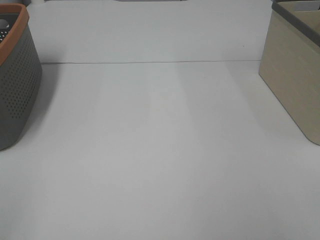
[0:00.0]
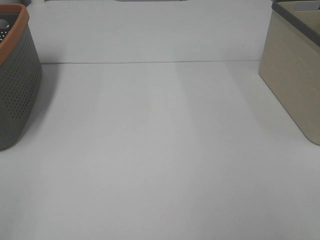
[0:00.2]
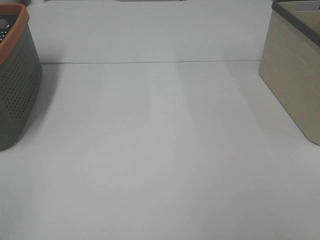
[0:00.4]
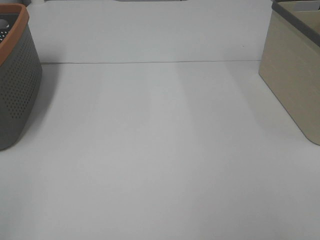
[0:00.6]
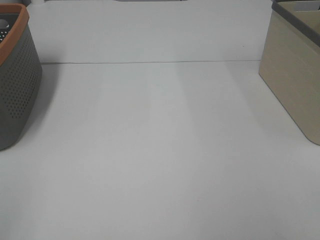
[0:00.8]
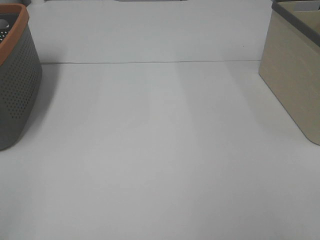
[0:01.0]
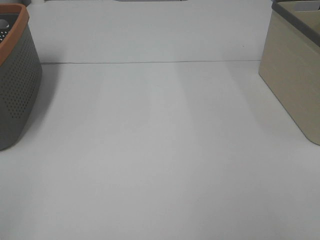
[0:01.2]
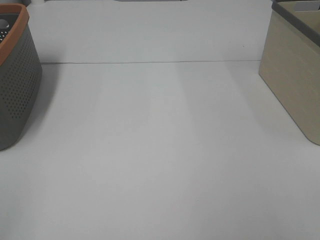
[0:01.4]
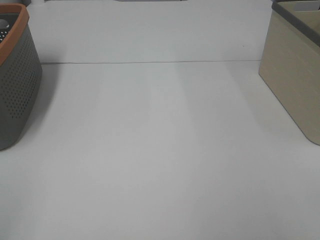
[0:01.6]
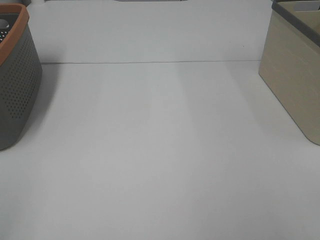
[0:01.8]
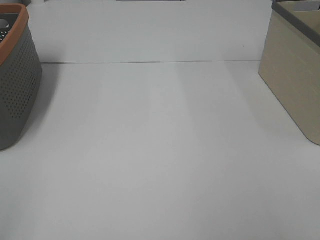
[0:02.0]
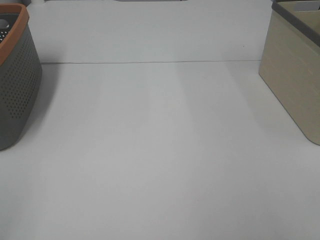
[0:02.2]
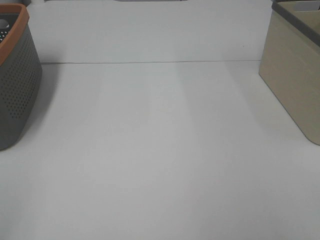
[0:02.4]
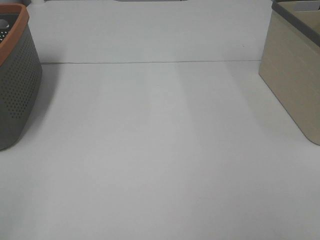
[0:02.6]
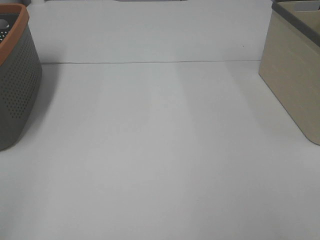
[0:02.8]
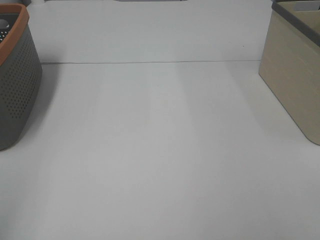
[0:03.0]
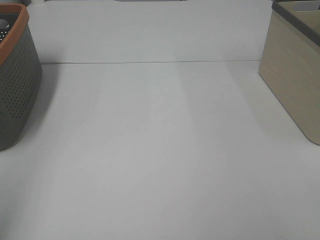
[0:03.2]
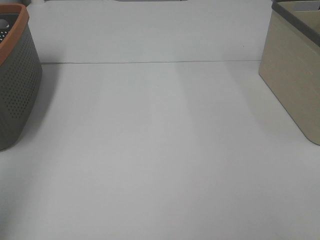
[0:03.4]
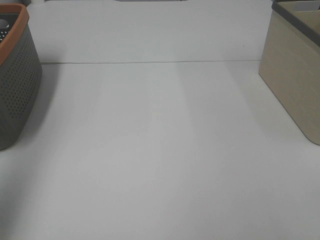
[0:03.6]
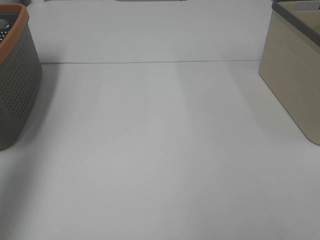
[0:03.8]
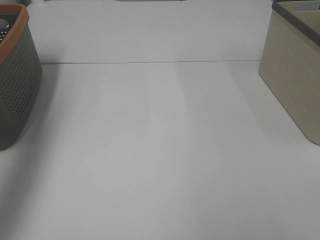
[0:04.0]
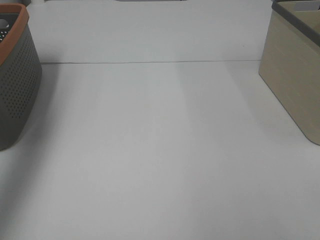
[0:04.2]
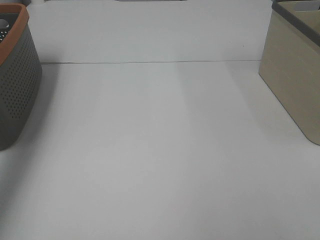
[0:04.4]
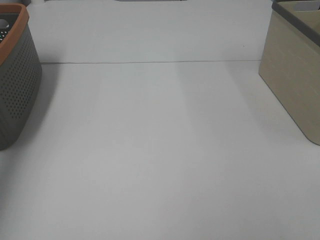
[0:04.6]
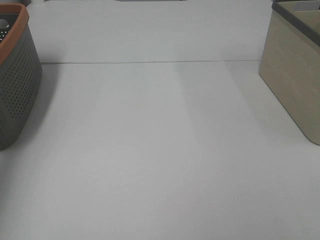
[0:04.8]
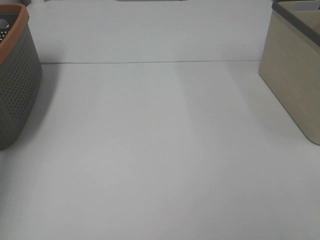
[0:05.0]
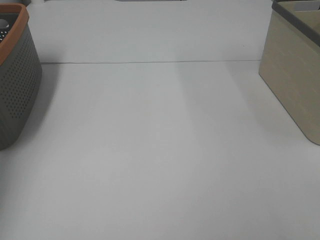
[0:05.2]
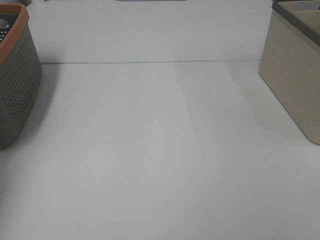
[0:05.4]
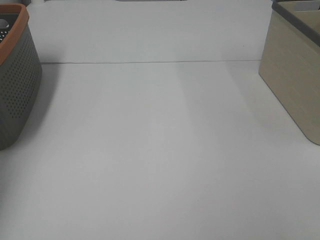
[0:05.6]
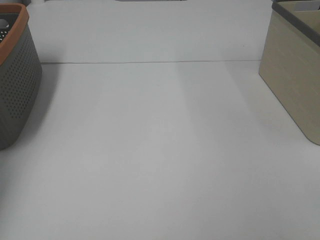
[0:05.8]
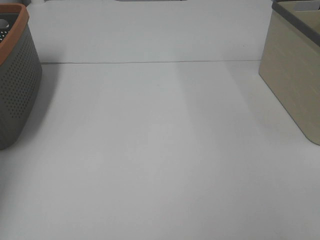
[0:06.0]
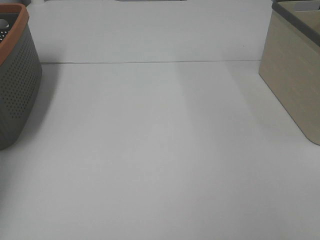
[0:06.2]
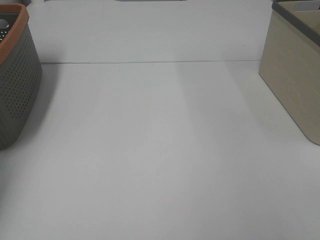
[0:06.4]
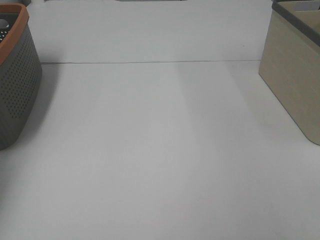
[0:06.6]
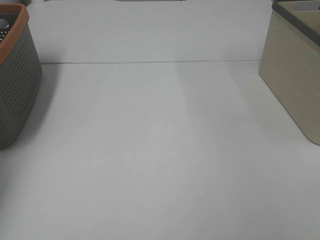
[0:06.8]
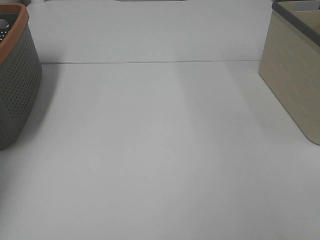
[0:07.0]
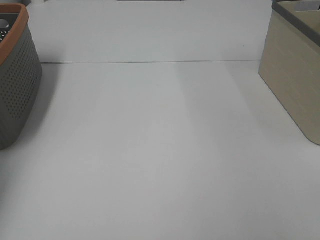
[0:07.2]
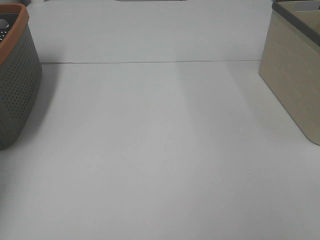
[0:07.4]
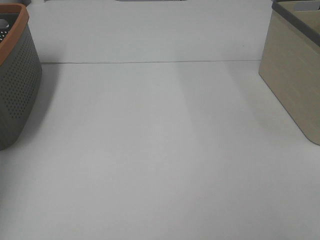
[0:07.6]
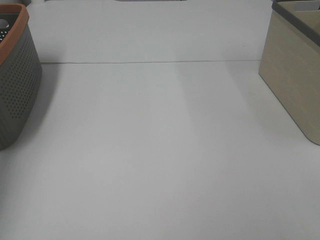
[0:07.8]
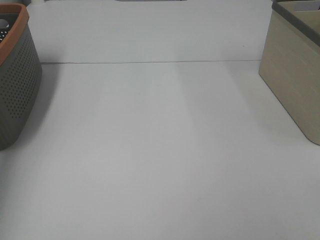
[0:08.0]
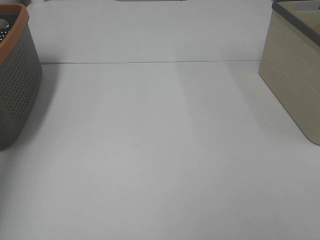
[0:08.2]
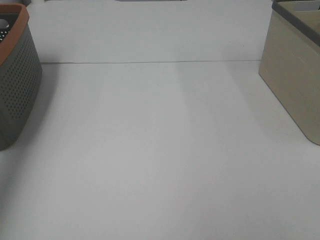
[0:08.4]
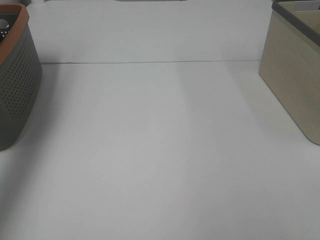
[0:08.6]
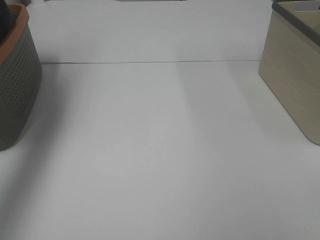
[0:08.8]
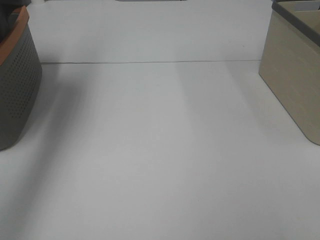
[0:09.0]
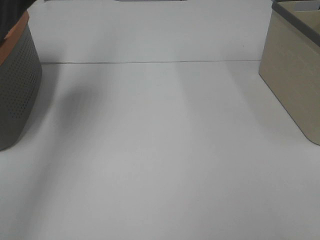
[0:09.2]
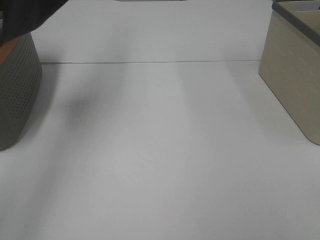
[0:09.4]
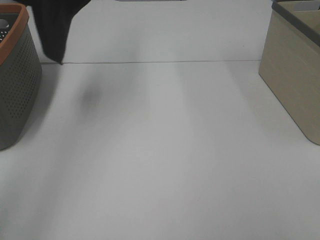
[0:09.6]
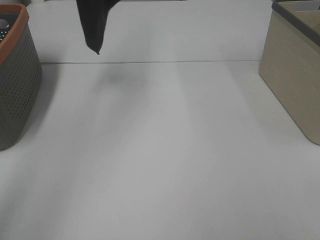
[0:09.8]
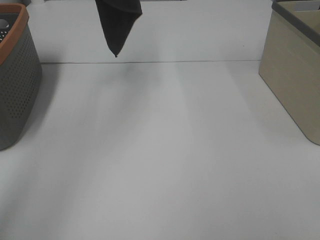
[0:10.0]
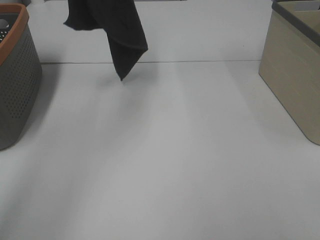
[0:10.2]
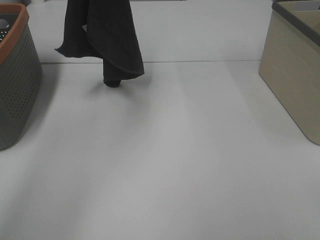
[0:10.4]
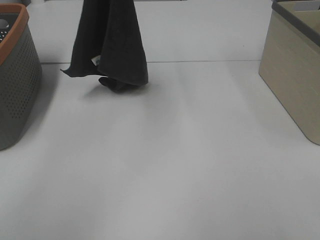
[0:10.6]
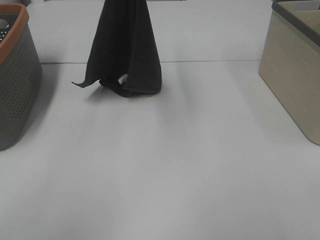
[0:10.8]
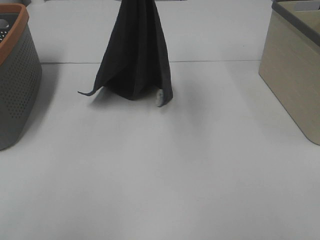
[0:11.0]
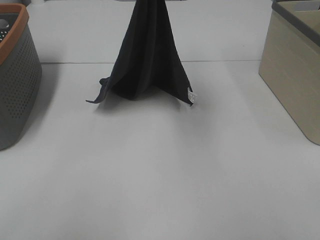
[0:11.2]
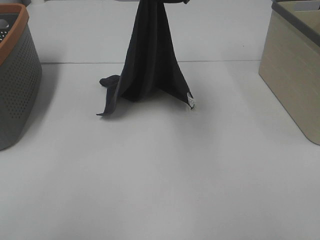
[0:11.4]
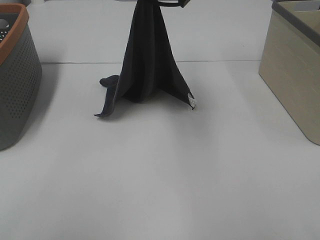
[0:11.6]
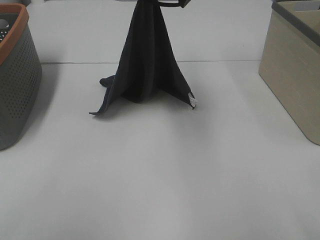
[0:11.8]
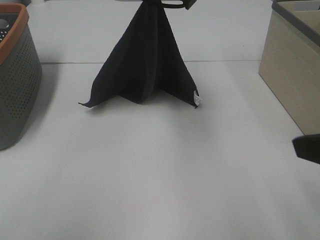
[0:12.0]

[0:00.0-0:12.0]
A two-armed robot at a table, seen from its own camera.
Task of the whole recording: Remove the towel and place it.
0:00.0 to 0:01.6: Both grippers stay about where they are.
0:03.0 to 0:04.4: The left gripper heads forward, covering approximately 30 cm.
0:04.4 to 0:06.0: The left gripper moves downward and forward, approximately 20 cm.
0:07.6 to 0:09.0: The left gripper shifts about 35 cm upward, to the right and backward.
0:09.0 to 0:10.4: The left gripper is displaced to the right, downward and forward by approximately 20 cm.
0:10.4 to 0:12.0: The right gripper shifts some 15 cm forward. The left gripper is displaced to the right, downward and backward by about 15 cm.

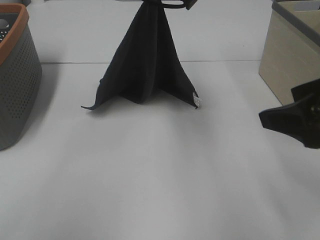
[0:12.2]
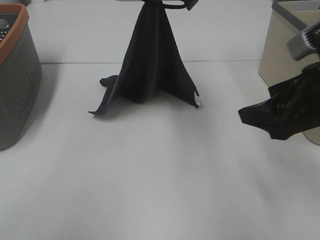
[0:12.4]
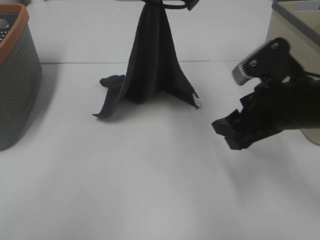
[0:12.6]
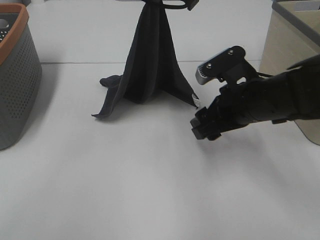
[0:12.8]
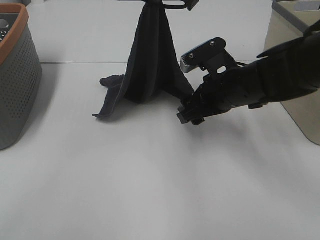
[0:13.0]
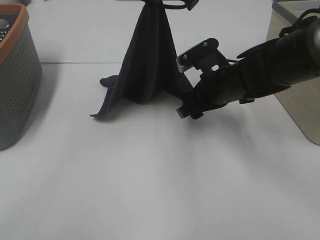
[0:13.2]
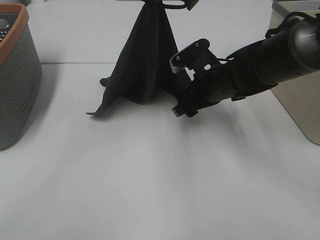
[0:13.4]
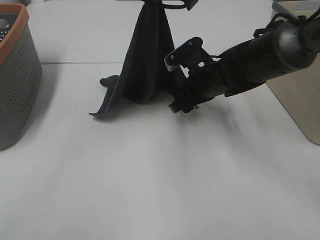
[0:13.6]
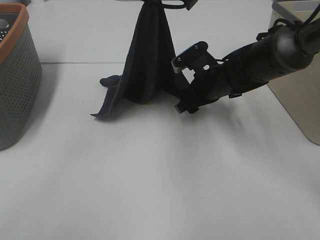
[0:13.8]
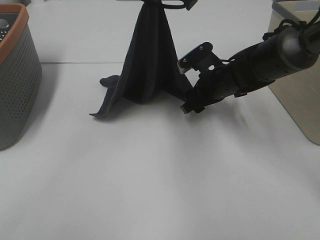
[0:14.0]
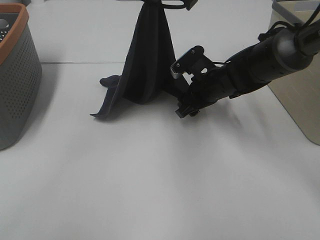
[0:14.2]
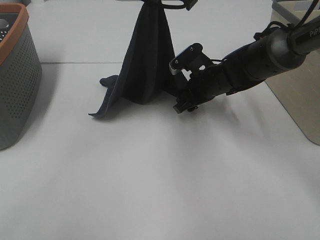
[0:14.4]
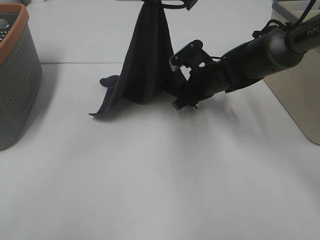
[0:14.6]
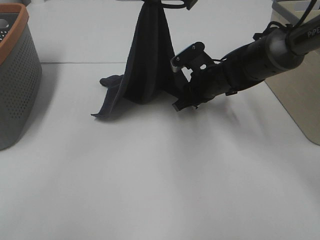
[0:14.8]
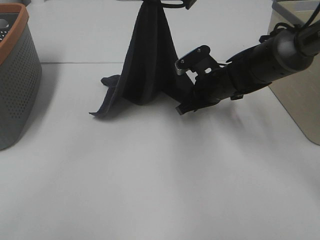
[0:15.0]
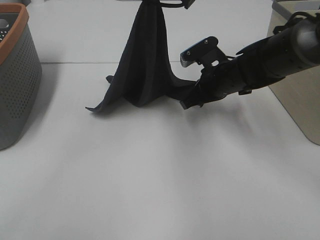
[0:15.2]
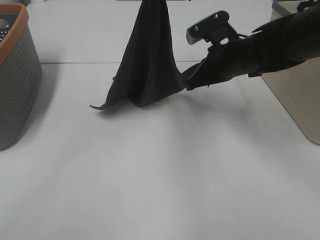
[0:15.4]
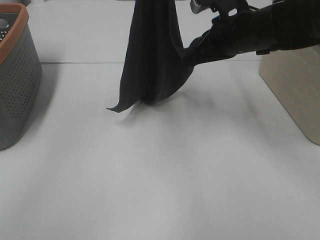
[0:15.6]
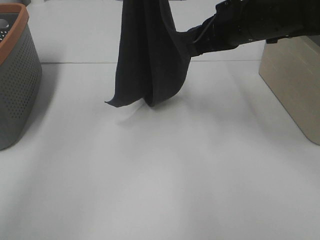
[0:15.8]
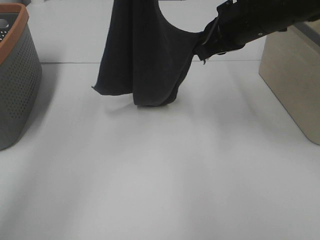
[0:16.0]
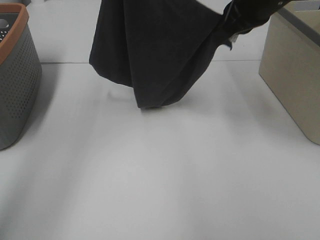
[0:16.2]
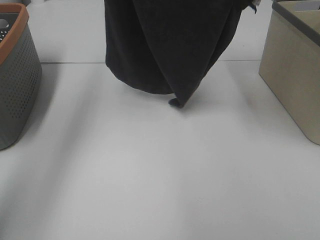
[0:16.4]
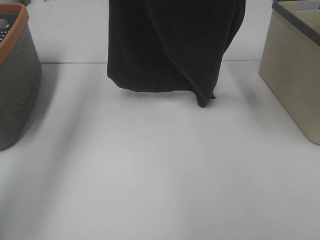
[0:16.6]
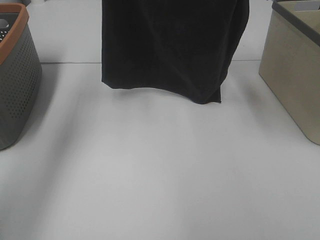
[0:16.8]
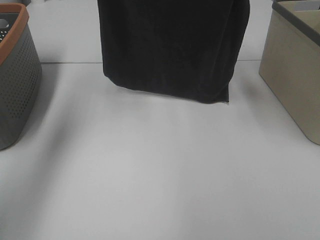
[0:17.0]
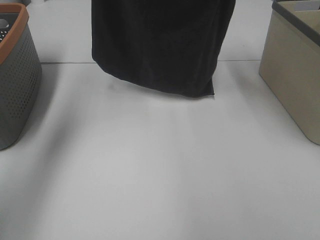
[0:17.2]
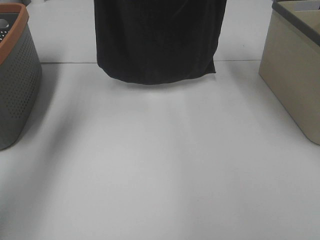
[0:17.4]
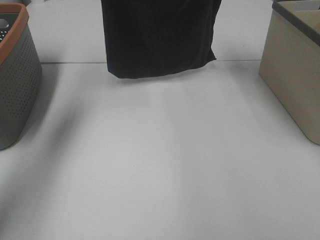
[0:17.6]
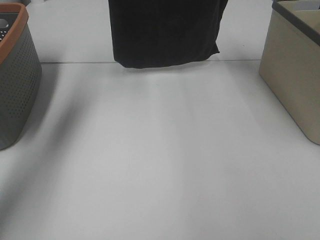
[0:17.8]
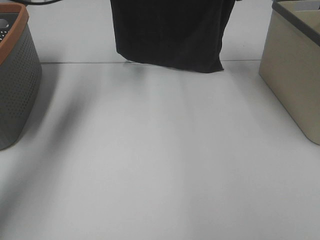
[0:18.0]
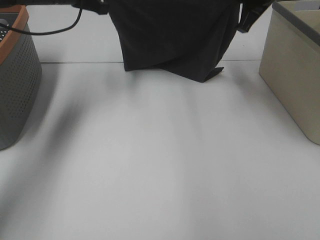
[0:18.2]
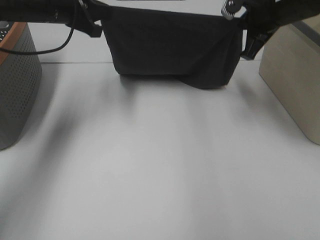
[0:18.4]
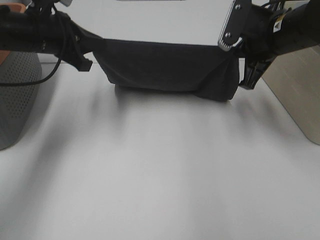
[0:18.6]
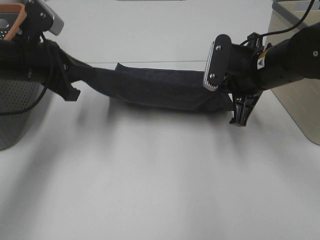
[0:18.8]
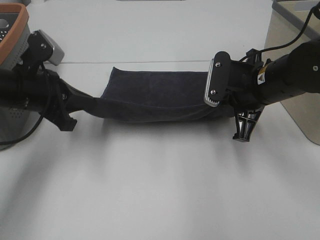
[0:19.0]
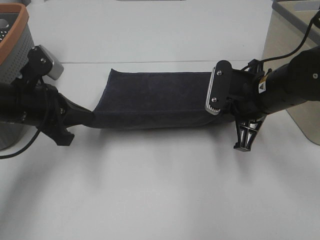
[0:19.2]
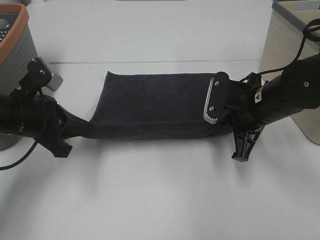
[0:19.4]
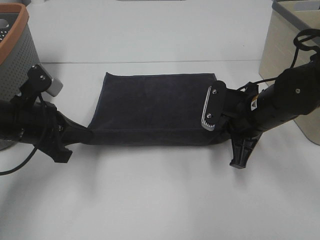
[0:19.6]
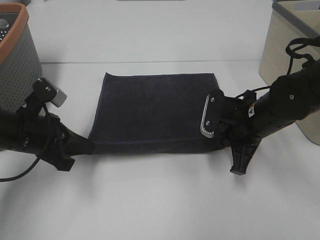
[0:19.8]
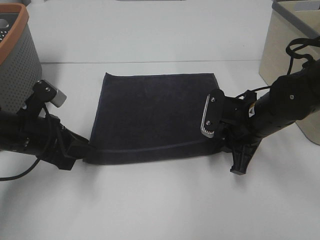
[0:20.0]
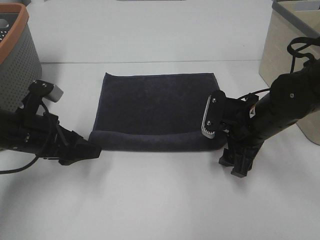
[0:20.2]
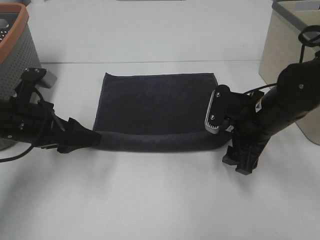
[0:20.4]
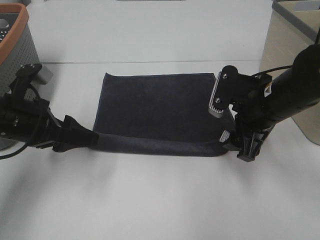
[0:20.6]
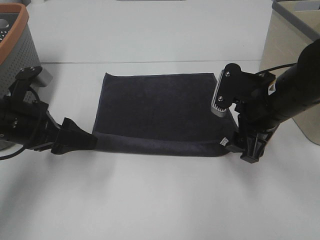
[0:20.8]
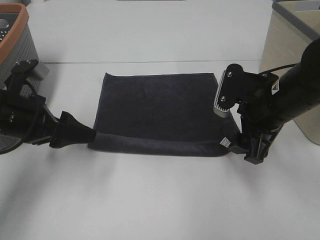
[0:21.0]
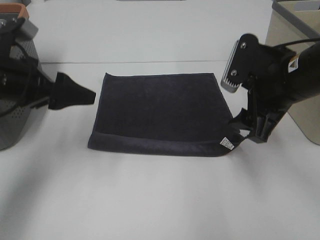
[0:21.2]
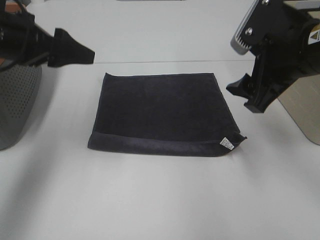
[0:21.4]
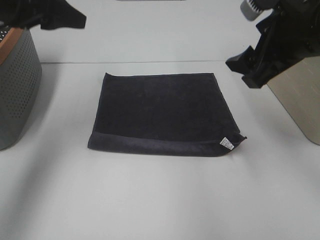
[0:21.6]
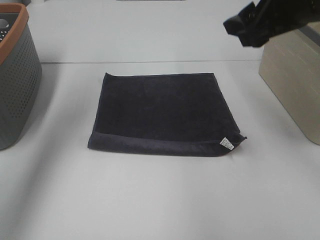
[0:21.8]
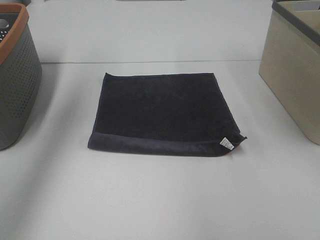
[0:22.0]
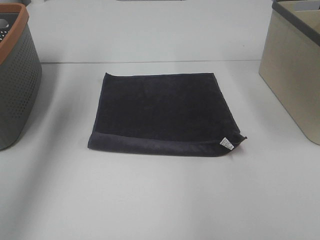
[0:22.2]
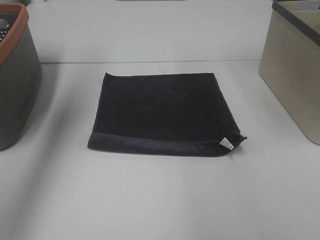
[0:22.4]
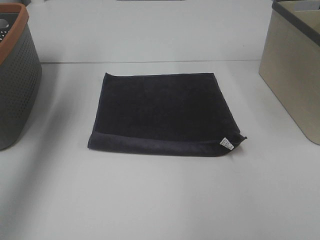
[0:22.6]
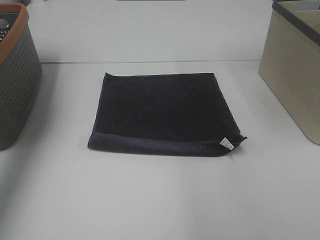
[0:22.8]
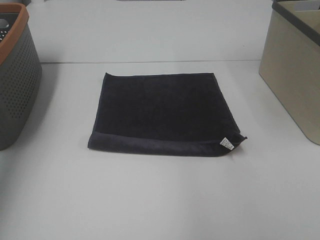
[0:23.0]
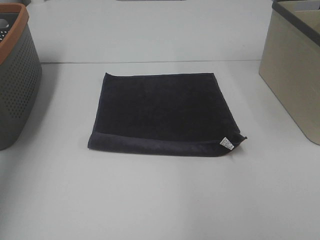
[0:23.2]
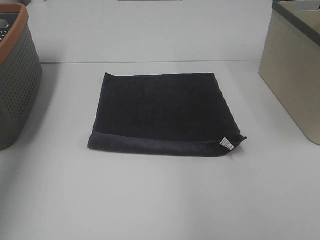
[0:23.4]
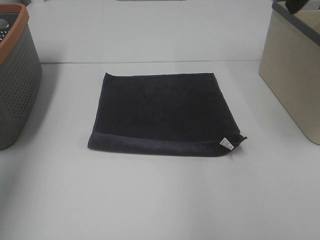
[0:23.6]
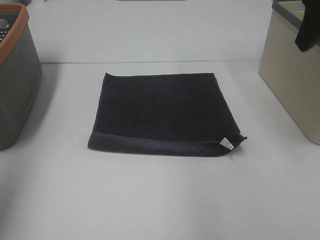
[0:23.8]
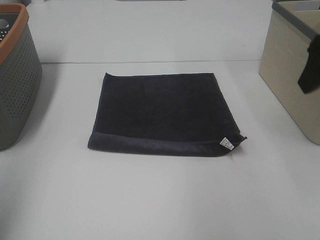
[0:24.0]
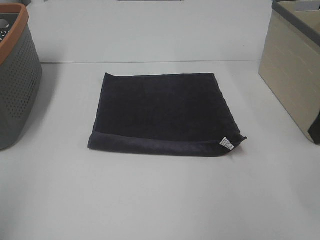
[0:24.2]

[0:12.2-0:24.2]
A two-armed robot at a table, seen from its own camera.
Task of the whole recording: Remove the towel and place it.
Step, 0:13.6 to 0:16.0: Left hand: spread the grey towel flat on the table.
Step, 0:13.6 to 0:16.4: Right hand: spread the grey towel flat on the table.
0:12.2 to 0:13.8: The right gripper is displaced forward, downward and to the left by about 30 cm.
0:13.8 to 0:15.2: The right gripper closes its fingers.
0:15.2 to 0:16.6: The right gripper travels upward by approximately 25 cm. The left gripper heads to the left and forward, covering about 15 cm.
0:16.6 to 0:18.2: The right gripper travels downward by roughly 10 cm. The left gripper travels downward by about 15 cm.
0:18.2 to 0:19.8: The left gripper moves backward and downward, approximately 25 cm; the right gripper heads downward and backward, covering approximately 20 cm.
0:19.8 to 0:21.2: The grippers both shift upward by roughly 10 cm. The right gripper opens up, while the left gripper opens up.
0:21.2 to 0:22.6: The left gripper shifts some 20 cm upward. The right gripper is displaced upward and forward by some 25 cm.
0:22.6 to 0:24.2: The left gripper shifts approximately 30 cm backward and downward.
